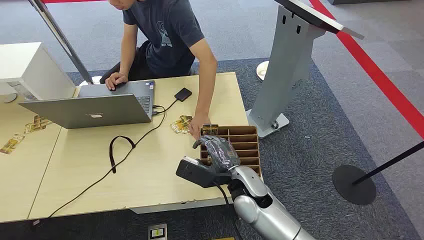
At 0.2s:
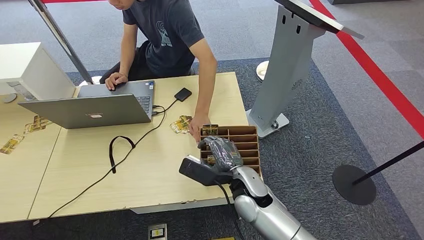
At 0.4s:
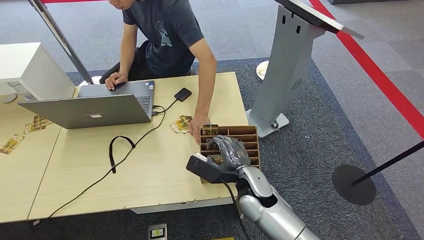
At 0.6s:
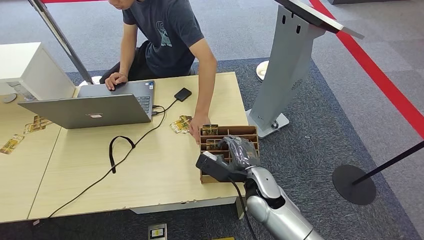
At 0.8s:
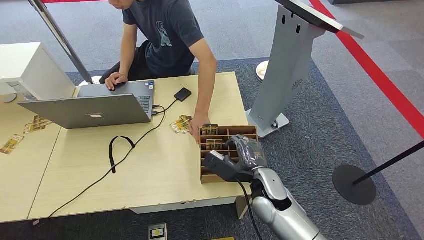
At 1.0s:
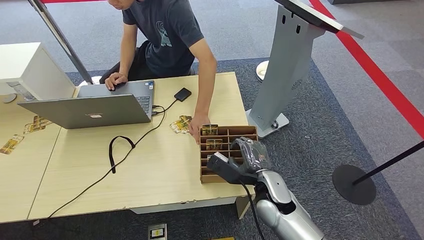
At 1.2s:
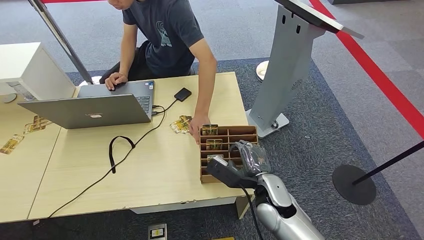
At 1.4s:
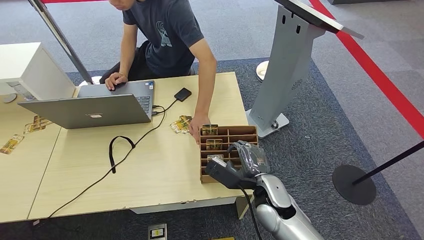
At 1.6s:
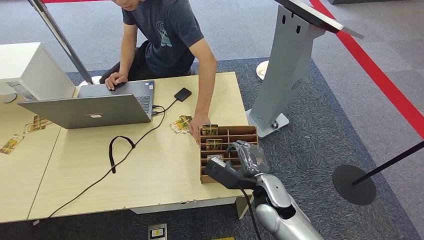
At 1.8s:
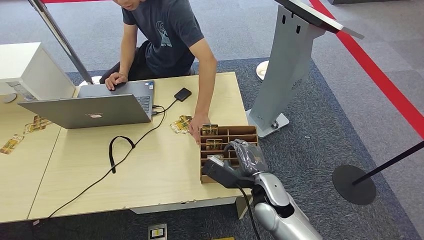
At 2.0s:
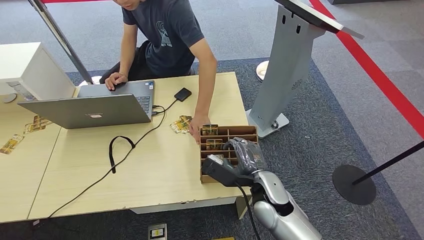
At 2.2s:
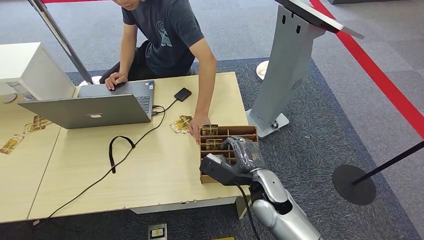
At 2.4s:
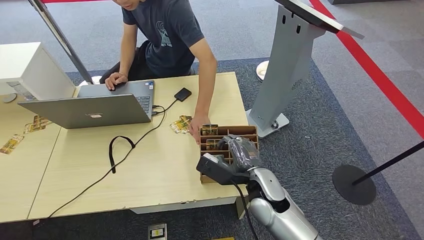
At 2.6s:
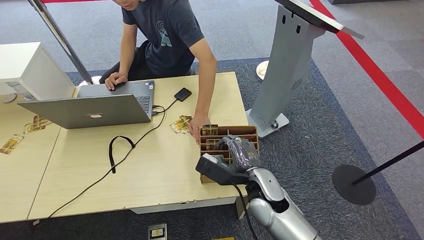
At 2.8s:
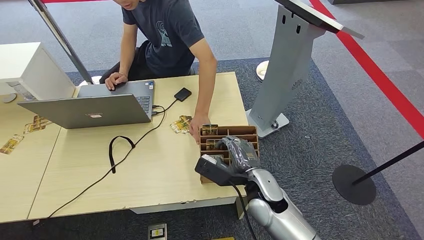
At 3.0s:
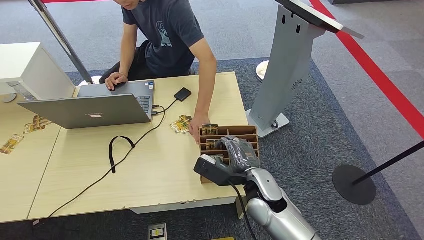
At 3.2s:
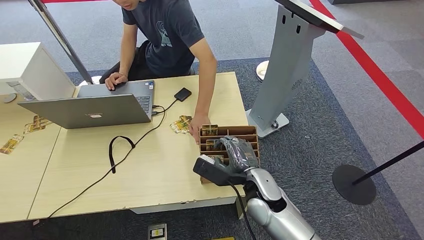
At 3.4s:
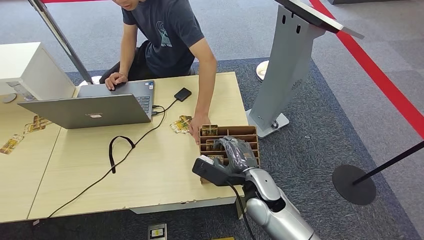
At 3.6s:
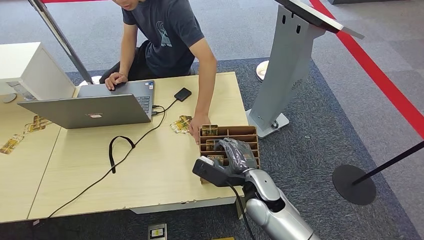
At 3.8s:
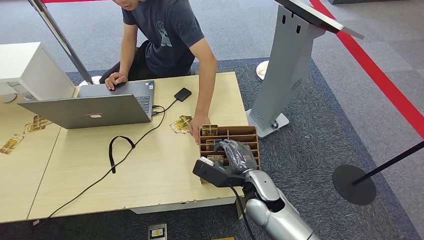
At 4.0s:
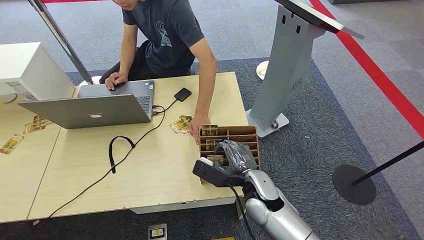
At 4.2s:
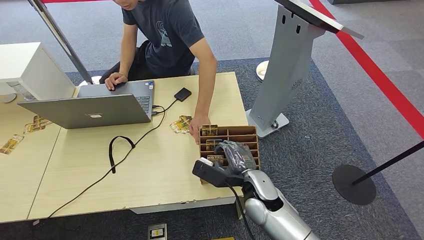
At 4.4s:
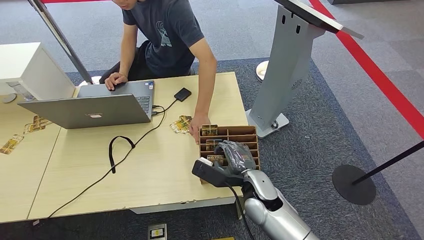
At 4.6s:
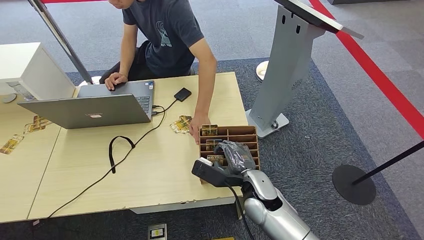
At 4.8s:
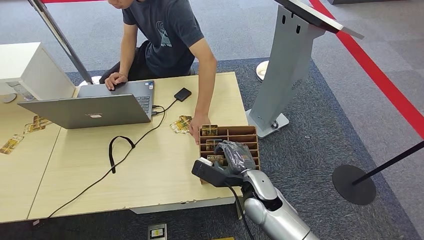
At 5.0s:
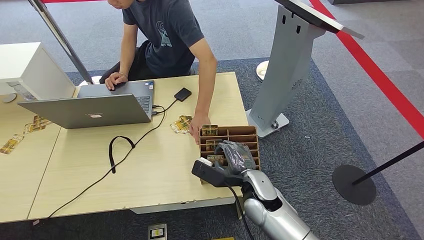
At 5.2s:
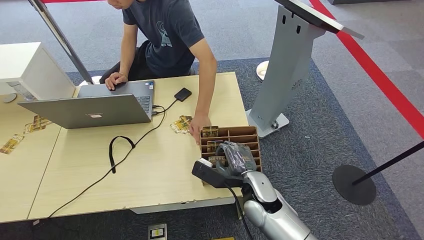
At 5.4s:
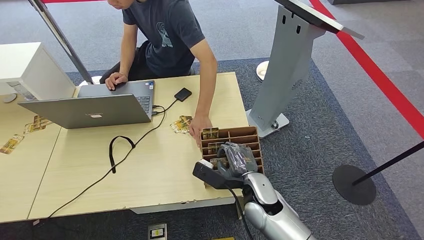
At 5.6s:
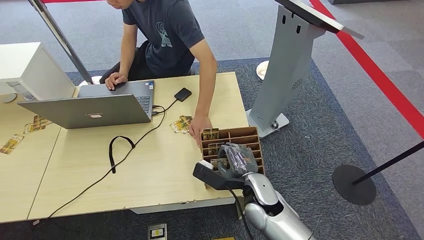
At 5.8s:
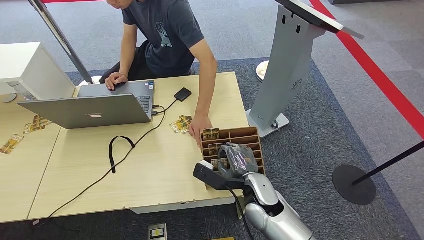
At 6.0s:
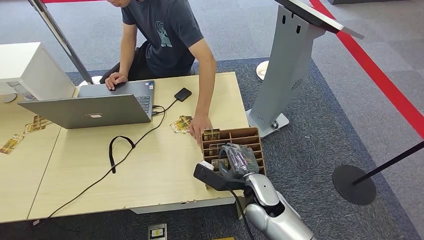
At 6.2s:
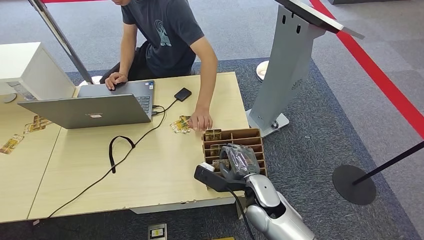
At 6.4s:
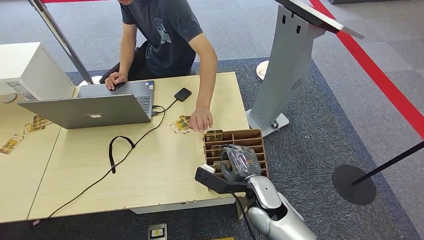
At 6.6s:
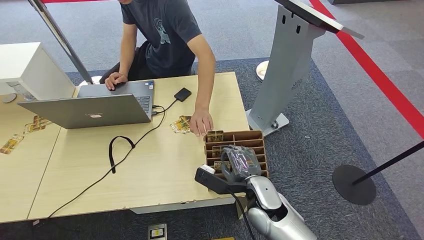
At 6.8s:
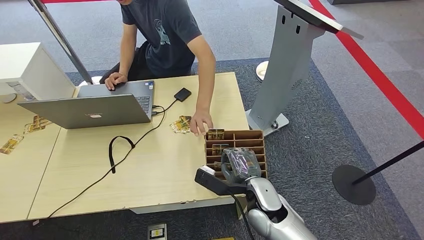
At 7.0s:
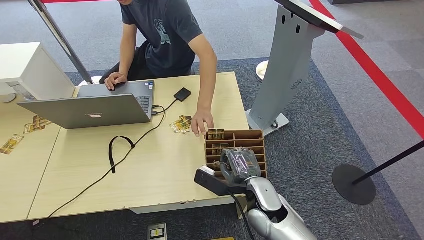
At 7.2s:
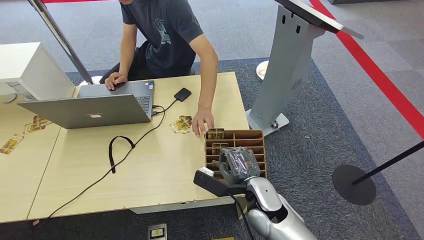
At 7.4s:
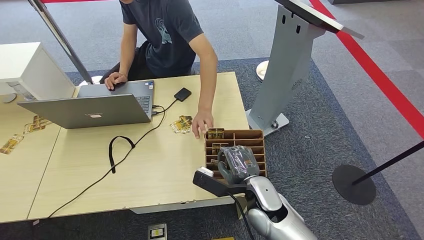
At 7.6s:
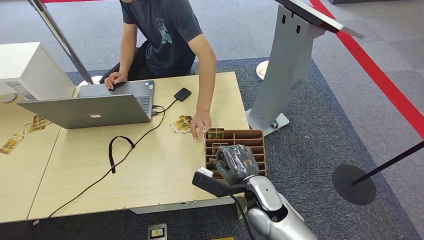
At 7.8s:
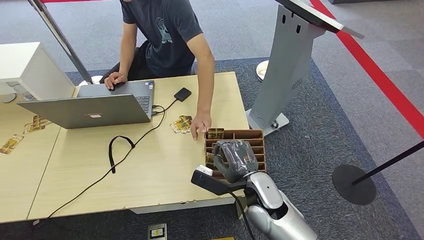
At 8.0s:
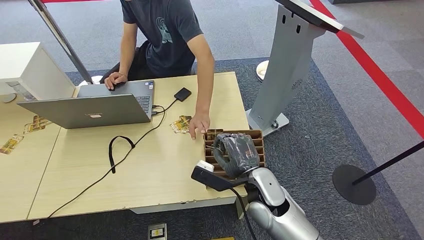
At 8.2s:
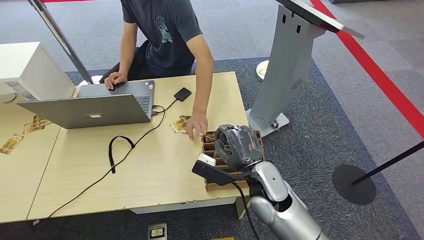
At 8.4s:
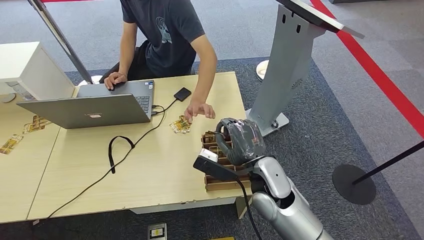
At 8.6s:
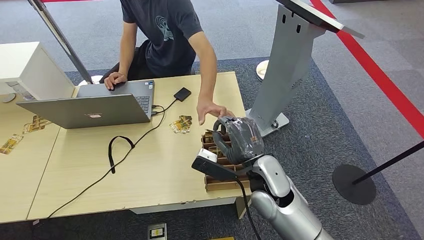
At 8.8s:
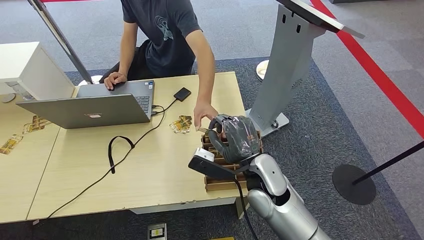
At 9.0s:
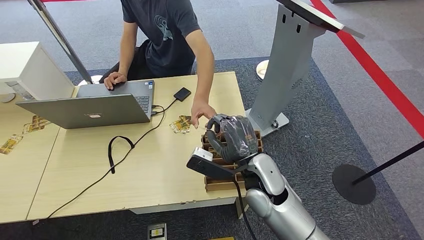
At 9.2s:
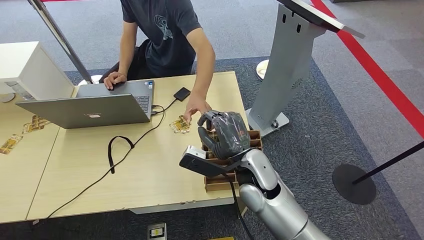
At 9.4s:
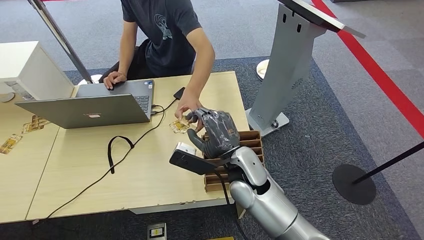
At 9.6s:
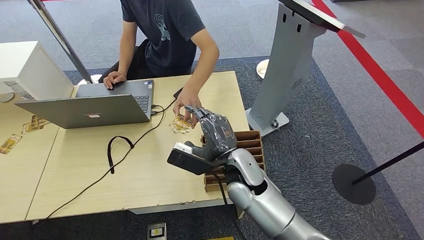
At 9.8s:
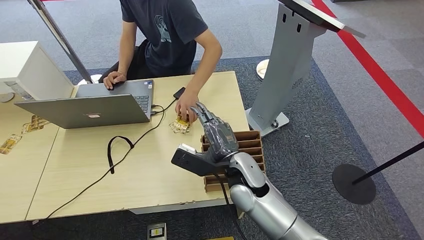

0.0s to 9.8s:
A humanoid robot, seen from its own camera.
Step, 0.0s to 8.2s: Pick up the room card from the card holder.
Step, 8.6s to 9.8s: Hand the room card to the target.
1.4s to 7.0s: There are only small adjustments of the hands.
7.0s to 8.4s: The right hand heads upward, covering approximately 5 cm.
